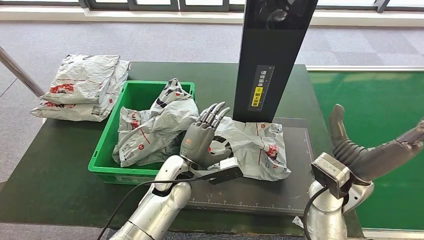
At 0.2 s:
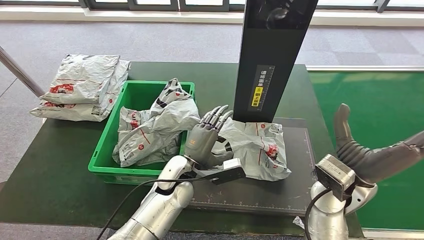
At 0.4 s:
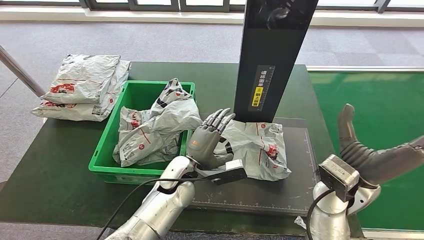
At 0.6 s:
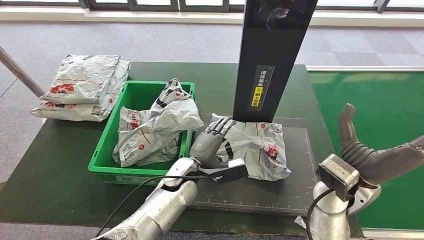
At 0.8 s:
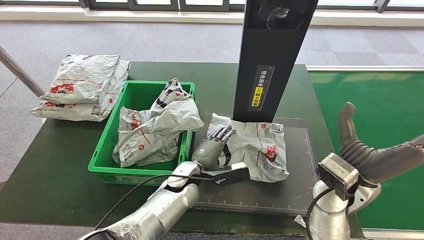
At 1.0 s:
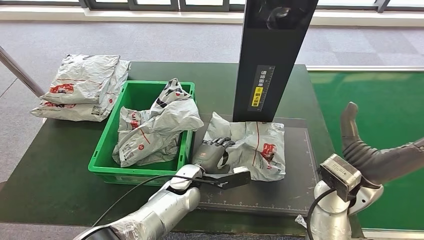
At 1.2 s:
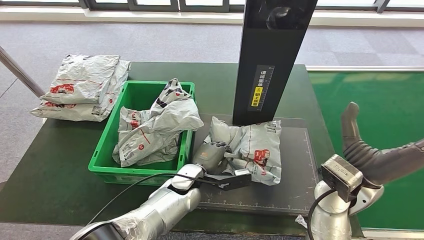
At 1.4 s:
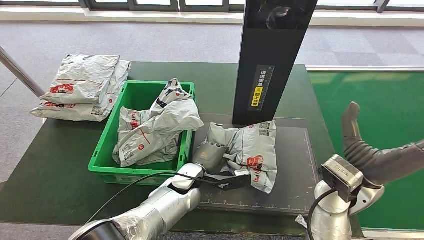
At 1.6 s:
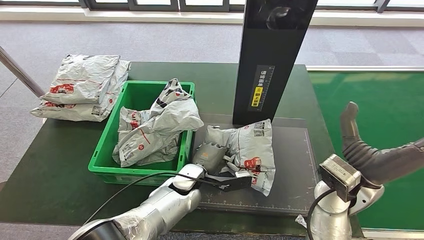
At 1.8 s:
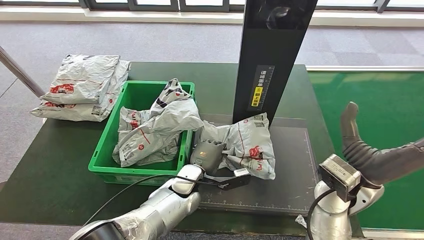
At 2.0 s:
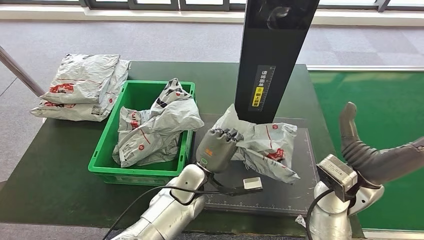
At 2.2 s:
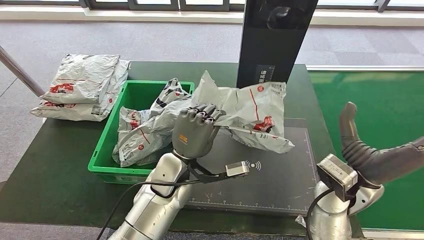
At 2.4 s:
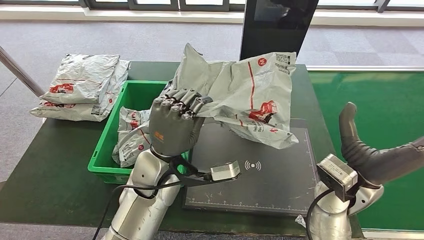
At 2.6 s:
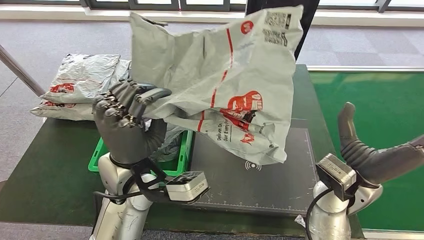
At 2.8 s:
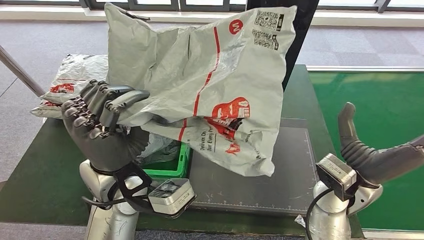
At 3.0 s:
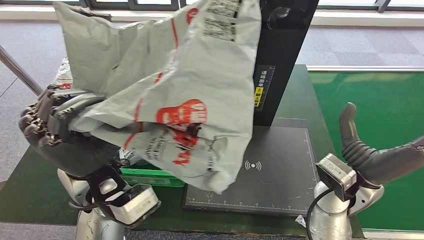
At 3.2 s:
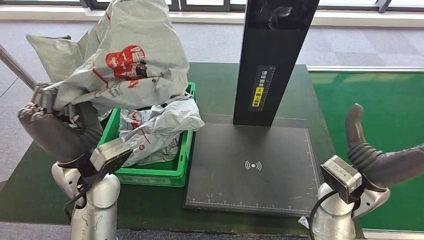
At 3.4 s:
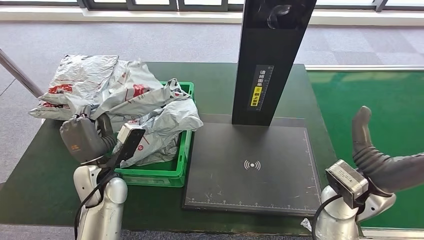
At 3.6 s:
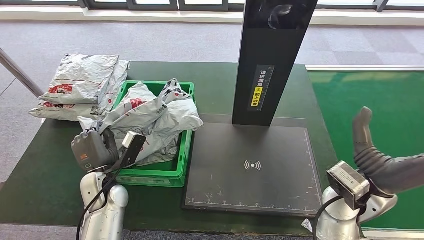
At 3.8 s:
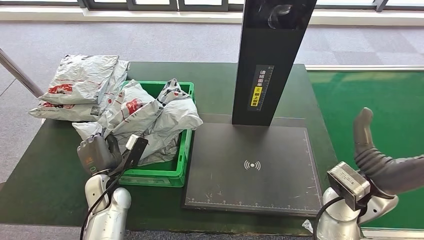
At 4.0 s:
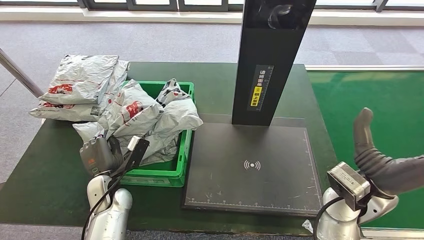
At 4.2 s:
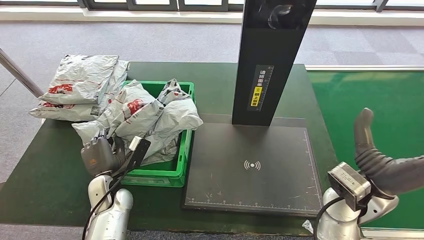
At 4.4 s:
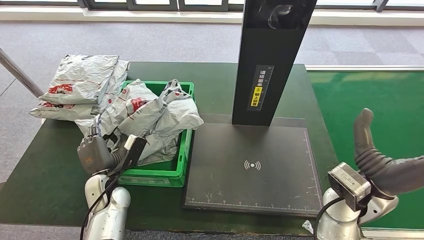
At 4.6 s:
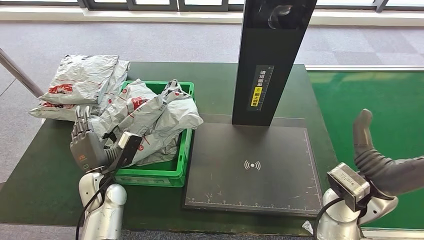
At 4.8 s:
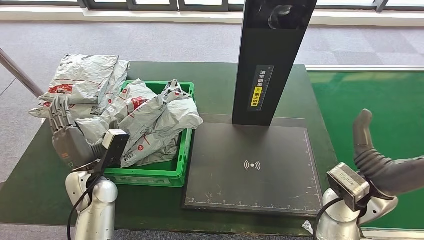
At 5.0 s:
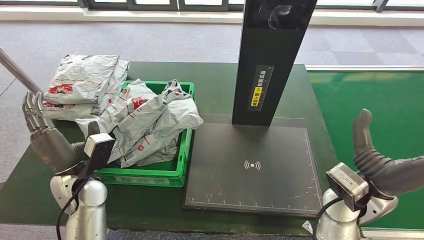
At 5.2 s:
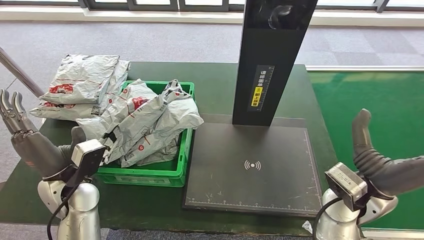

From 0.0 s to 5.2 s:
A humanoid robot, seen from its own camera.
Step, from 0.0 s to 2.0 s: Pick up the parcel from the inbound machine.
Step, from 2.2 s to 5.2 s: Place the parcel into the delivery box.
From 0.0 s to 1.8 s: The left hand moves downward, some 5 cm.
From 3.4 s to 5.2 s: The left hand shifts about 5 cm to the left, and moves about 10 cm downward and comes back.

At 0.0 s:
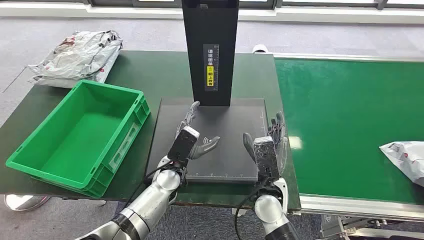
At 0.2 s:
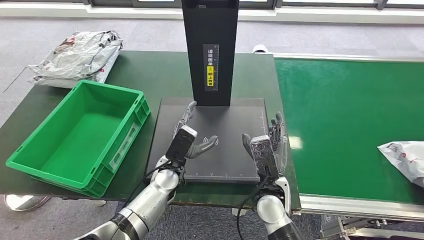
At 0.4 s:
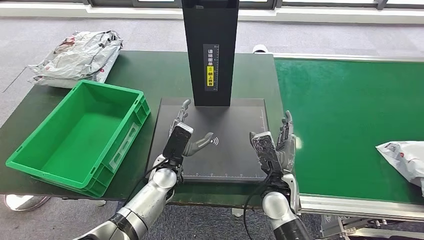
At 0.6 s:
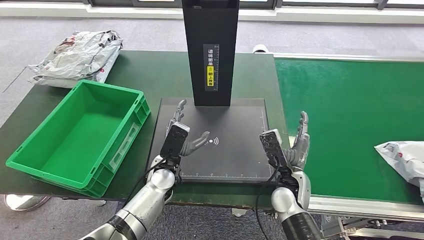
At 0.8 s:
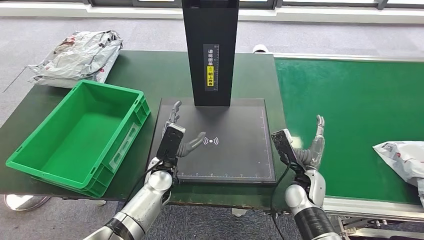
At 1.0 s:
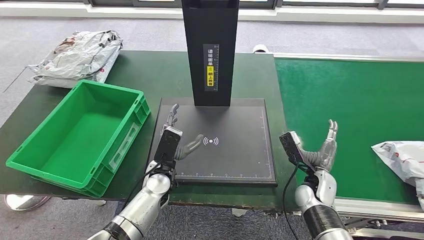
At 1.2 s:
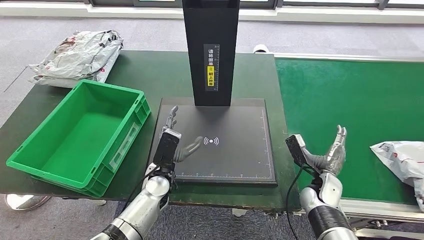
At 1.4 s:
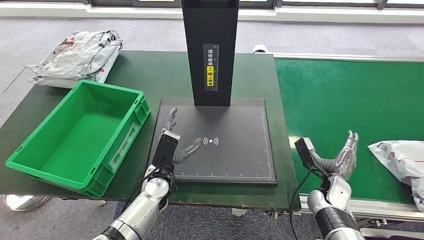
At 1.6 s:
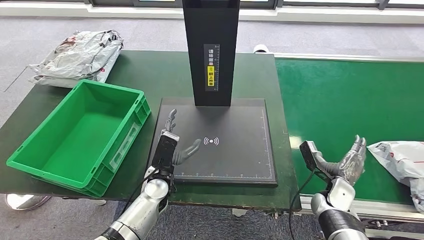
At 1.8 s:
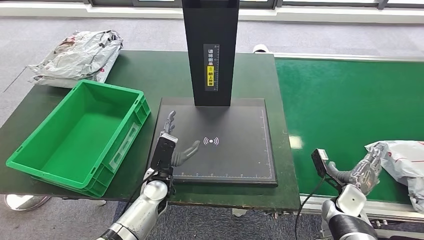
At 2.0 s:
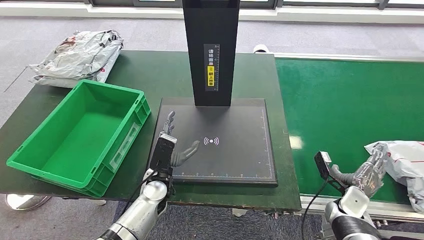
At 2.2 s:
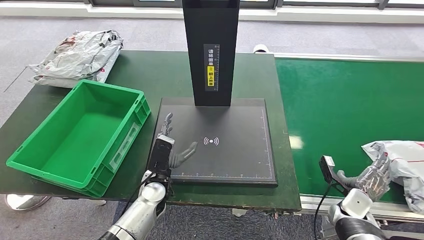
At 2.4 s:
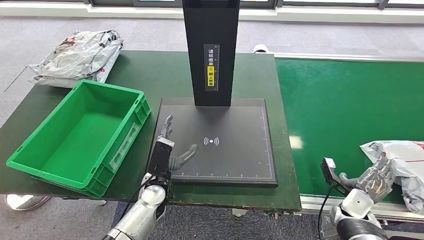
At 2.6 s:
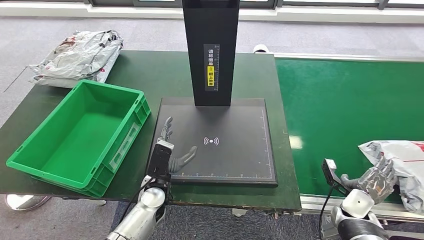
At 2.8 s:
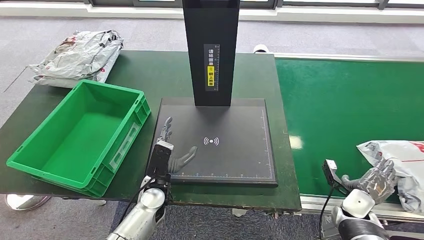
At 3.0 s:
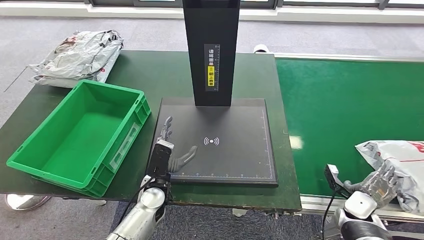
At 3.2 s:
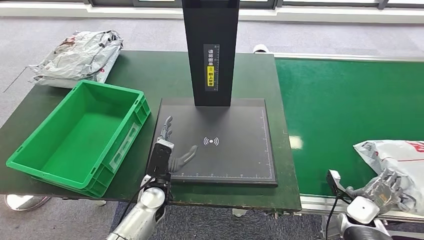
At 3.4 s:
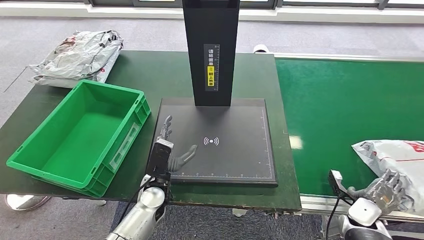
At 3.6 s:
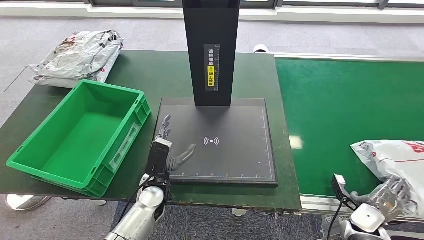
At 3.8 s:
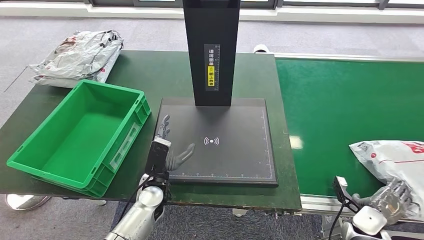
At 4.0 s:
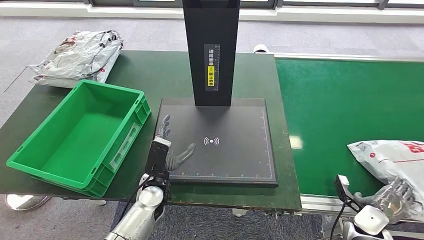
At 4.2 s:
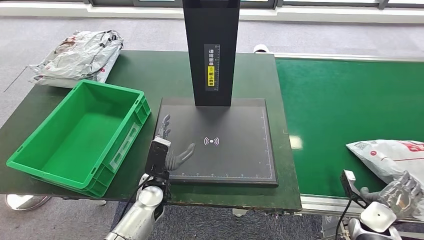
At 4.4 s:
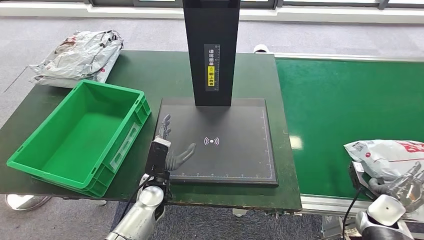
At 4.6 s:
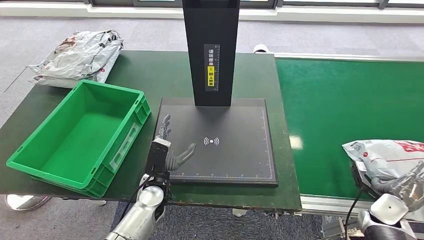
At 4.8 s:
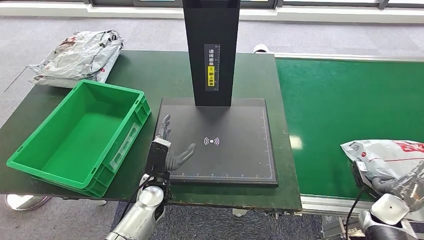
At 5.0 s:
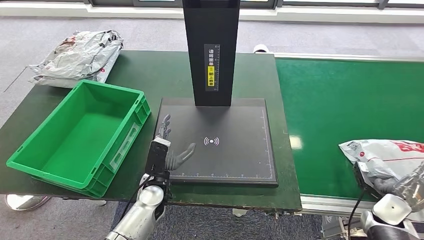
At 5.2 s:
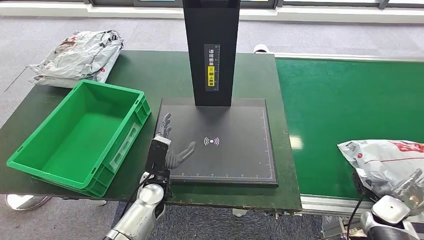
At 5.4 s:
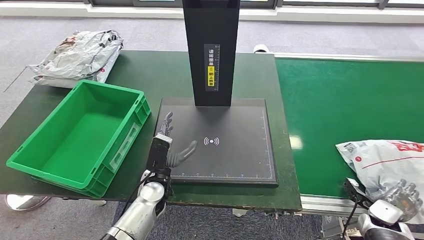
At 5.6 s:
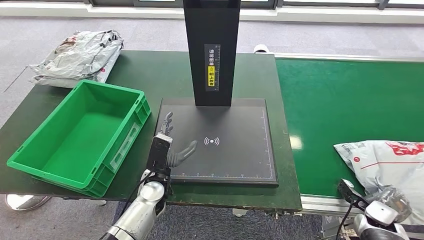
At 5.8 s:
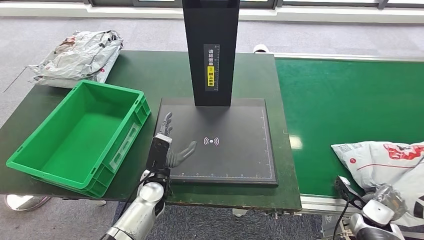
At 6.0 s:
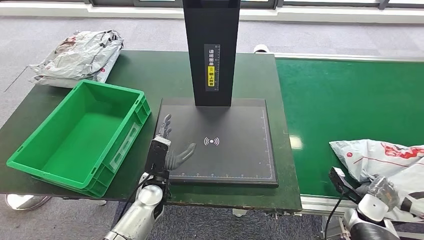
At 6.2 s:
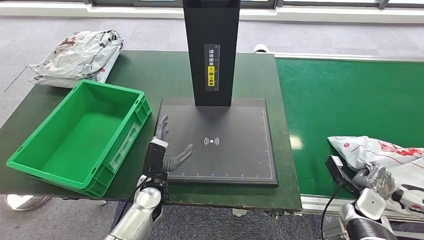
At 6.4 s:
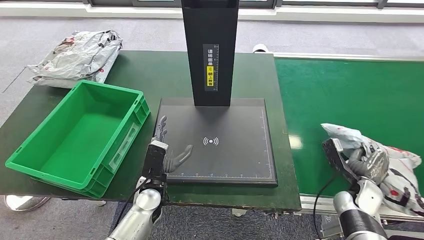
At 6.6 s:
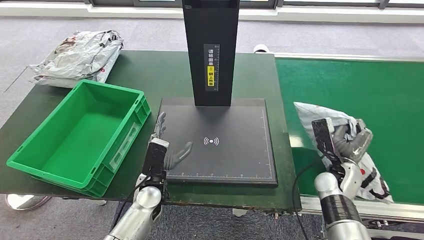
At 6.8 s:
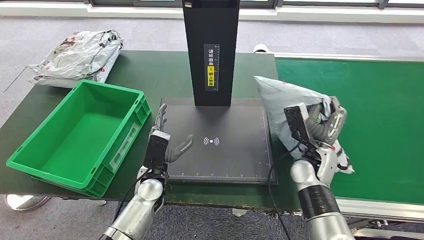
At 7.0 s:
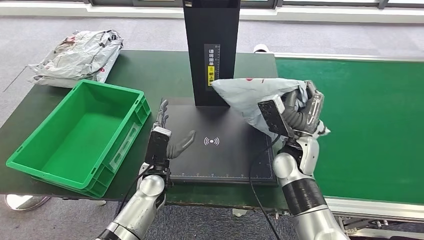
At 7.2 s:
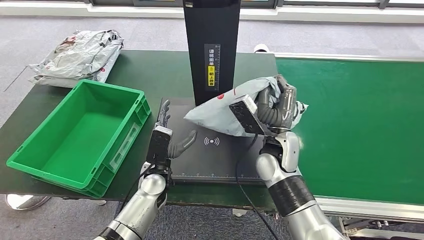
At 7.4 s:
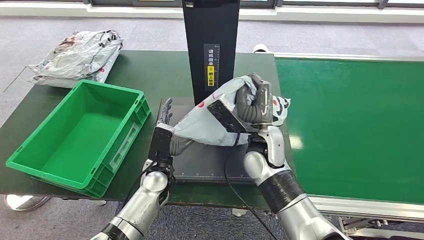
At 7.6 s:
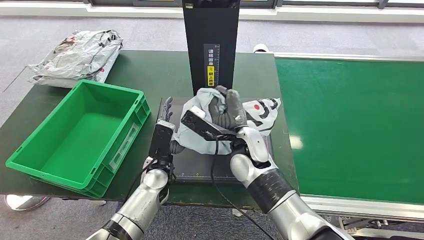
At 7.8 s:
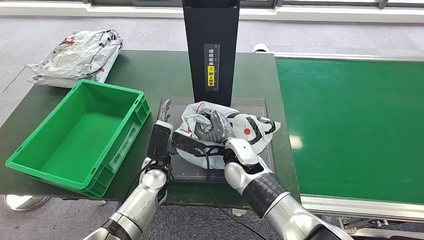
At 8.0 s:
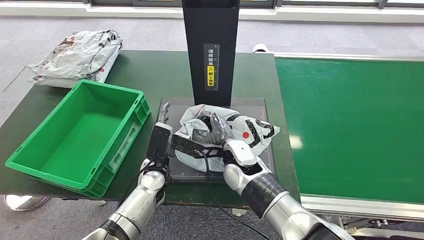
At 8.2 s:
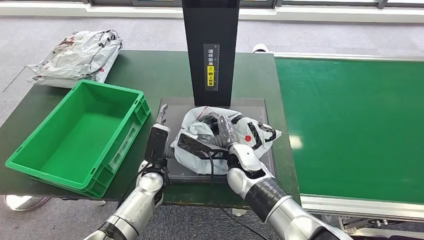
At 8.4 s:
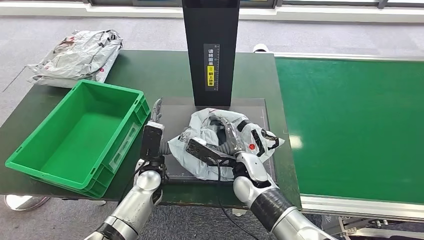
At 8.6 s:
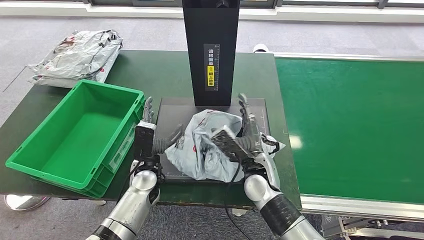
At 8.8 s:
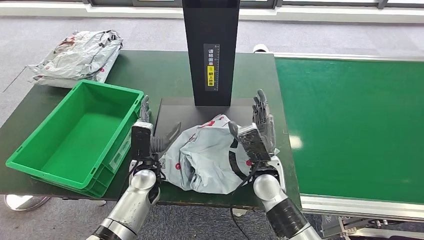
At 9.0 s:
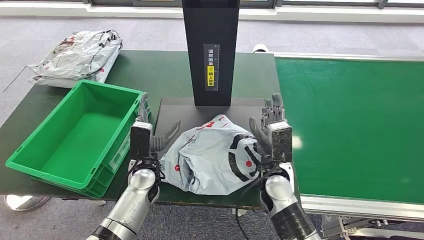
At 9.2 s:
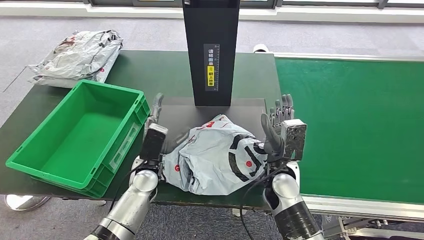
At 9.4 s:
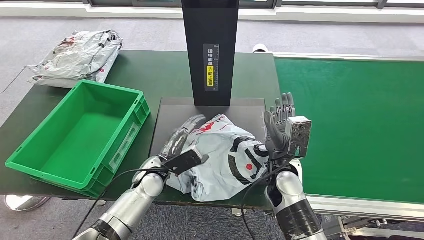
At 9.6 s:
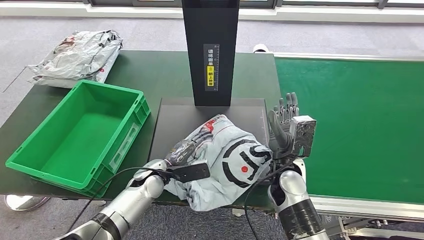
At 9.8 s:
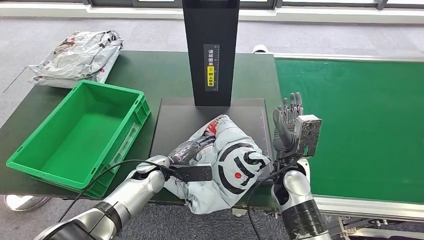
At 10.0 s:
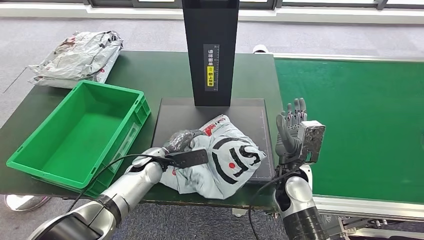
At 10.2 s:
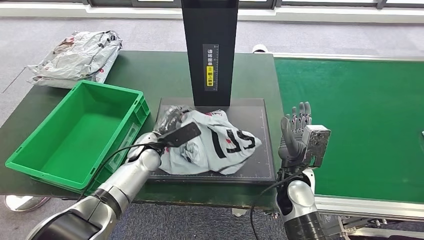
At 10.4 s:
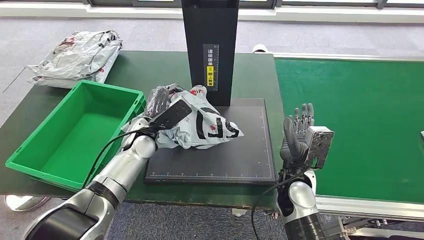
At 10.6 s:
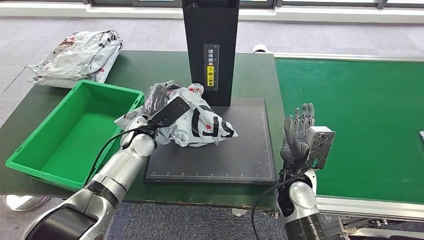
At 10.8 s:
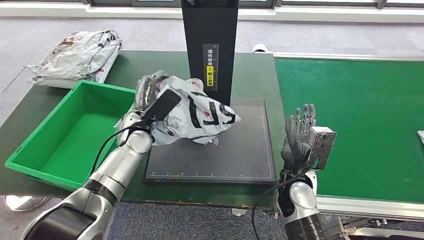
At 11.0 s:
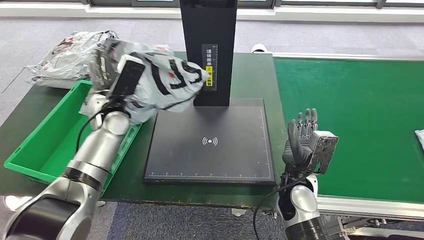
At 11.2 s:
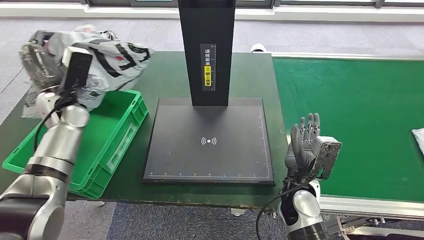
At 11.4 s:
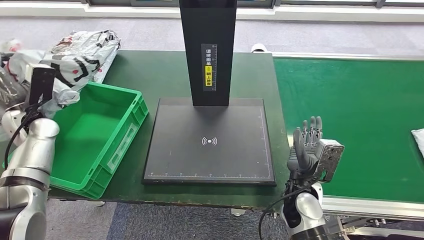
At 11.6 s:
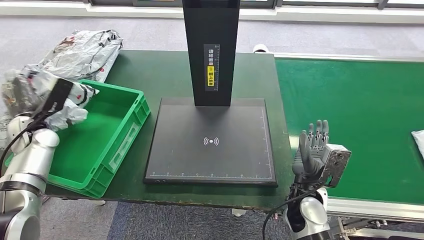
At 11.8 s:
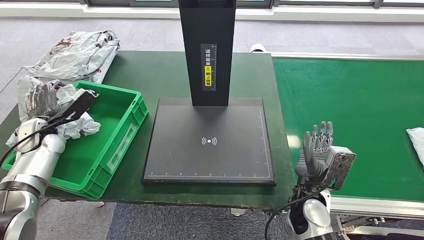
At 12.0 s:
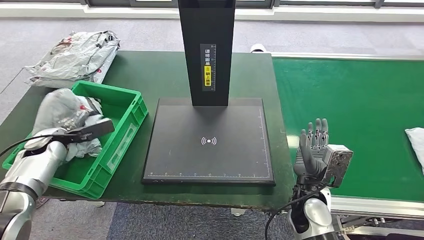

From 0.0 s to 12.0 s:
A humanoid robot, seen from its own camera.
Step, from 0.0 s to 7.6 s: Take the parcel off the conveyor belt.
Step, from 7.8 s to 9.0 s: Place the parcel onto the inbound machine.
Step, from 9.4 s to 11.4 s: Pick up the parcel from the inbound machine.
From 1.6 s to 3.0 s: The right hand goes some 5 cm to the right.
From 3.0 s to 4.4 s: The right hand shifts by approximately 5 cm.
From 7.6 s to 9.0 s: The right hand travels to the right and downward by approximately 10 cm.
